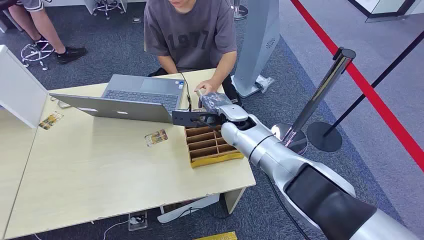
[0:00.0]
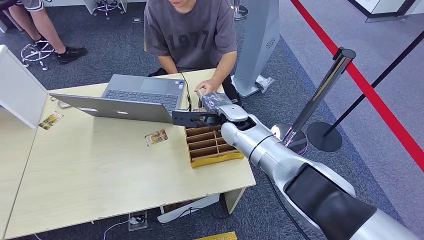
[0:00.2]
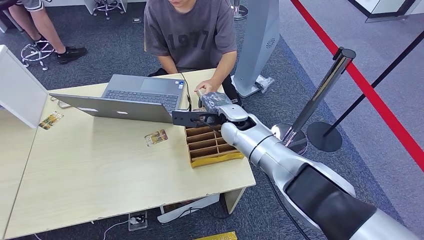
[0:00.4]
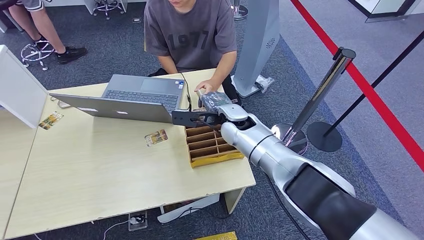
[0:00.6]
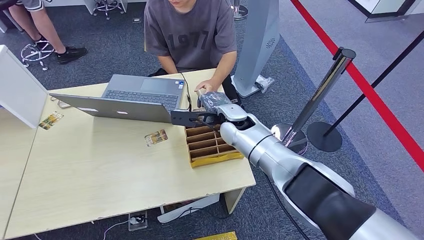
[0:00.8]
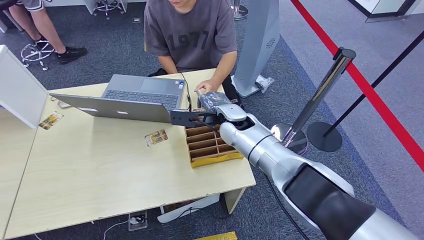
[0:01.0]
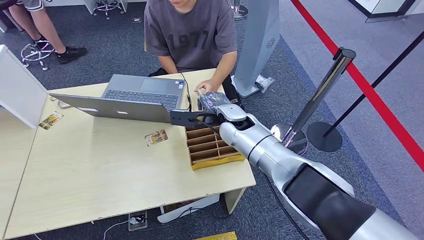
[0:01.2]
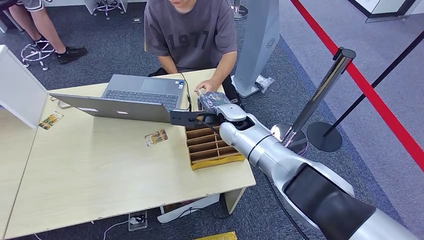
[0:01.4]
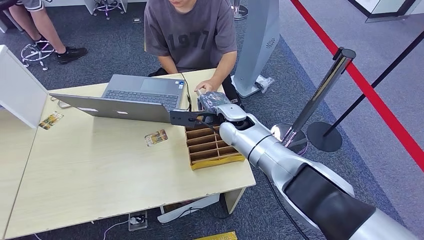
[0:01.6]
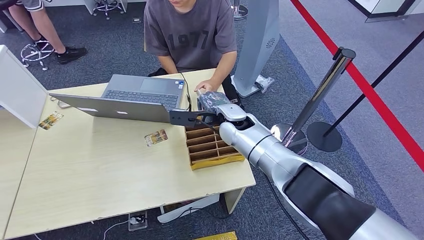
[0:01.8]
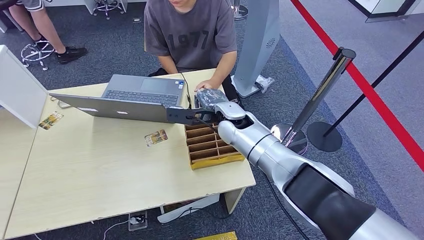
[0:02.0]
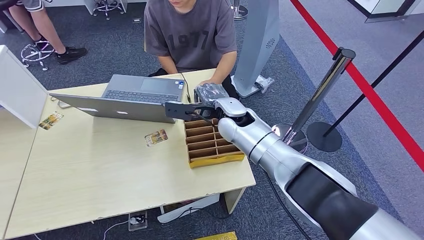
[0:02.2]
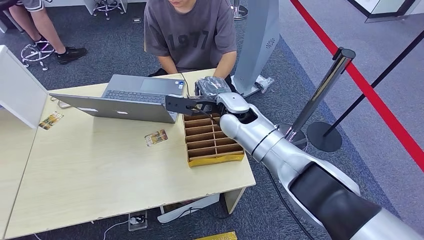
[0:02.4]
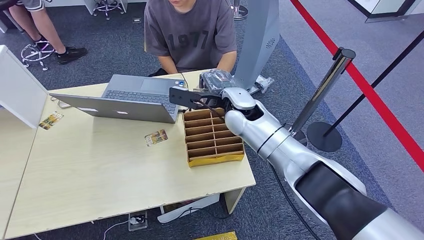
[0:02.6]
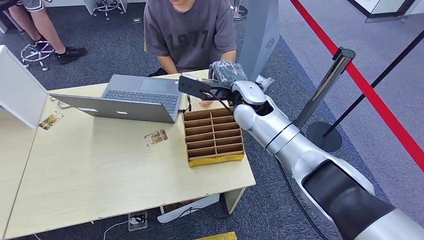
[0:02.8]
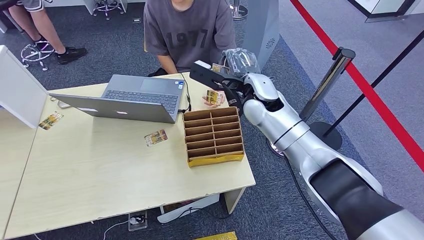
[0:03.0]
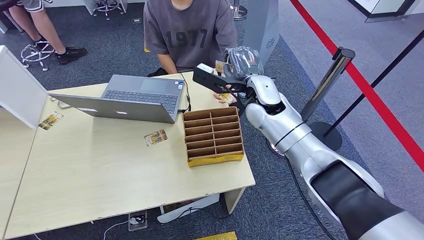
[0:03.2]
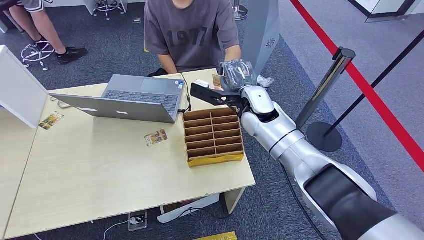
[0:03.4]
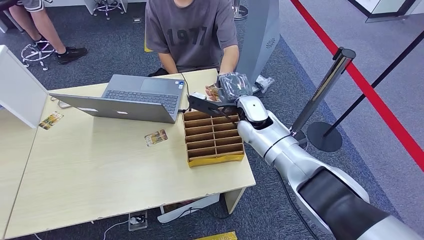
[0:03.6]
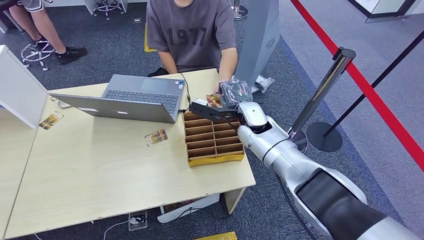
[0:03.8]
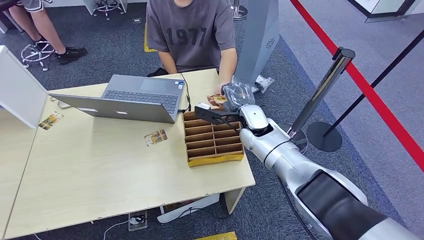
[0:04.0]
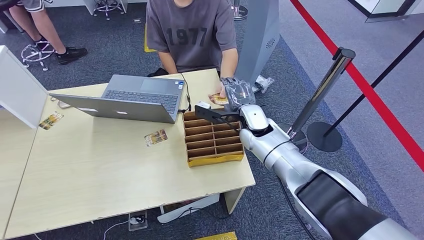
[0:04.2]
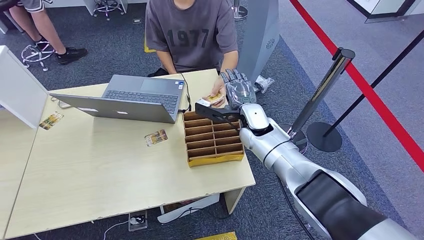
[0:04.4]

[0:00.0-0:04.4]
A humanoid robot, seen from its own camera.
Step, 0:00.0 to 0:01.8: Pick up the key card from the card box.
Step, 0:03.6 to 0:04.4: Hand the key card to the target.
0:01.4 to 0:03.0: The right hand is displaced upward by about 10 cm.
0:03.0 to 0:04.4: The right hand is displaced downward by roughly 10 cm.

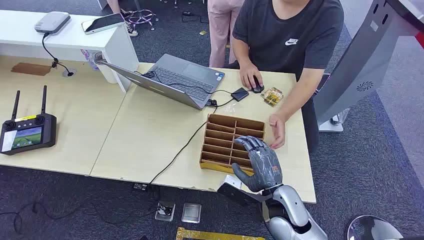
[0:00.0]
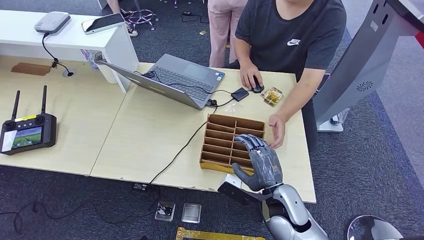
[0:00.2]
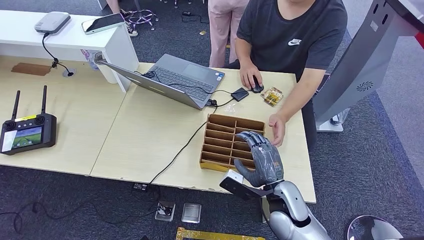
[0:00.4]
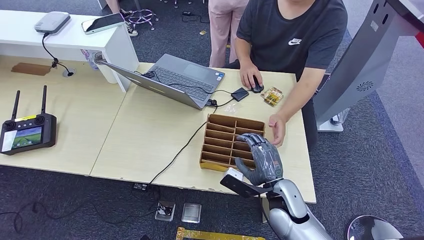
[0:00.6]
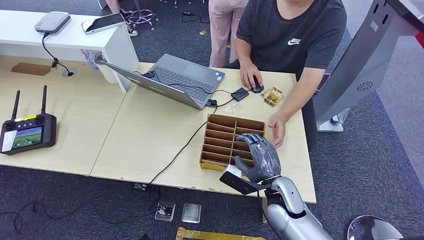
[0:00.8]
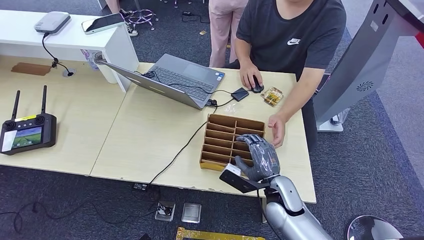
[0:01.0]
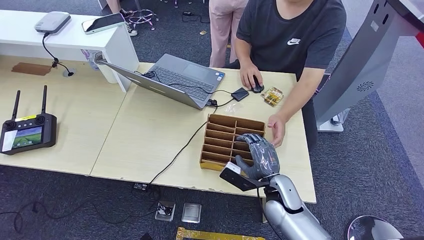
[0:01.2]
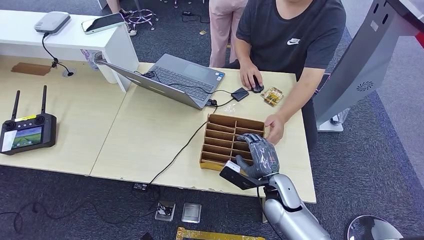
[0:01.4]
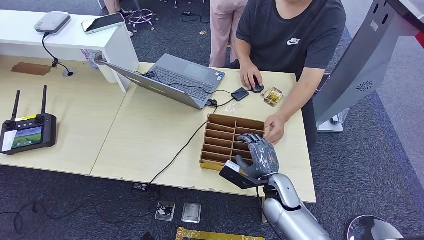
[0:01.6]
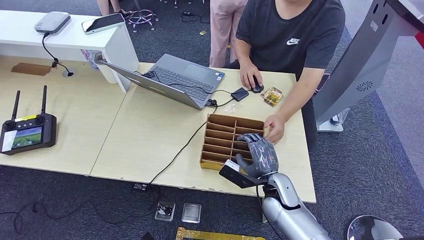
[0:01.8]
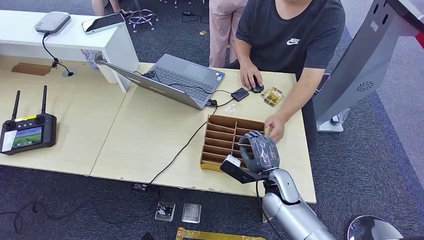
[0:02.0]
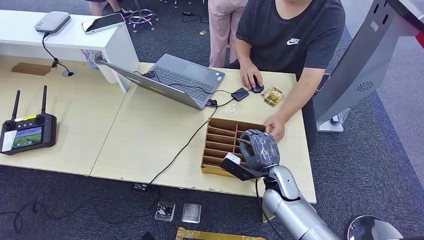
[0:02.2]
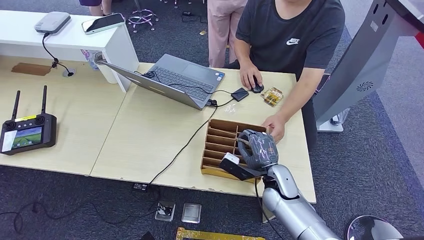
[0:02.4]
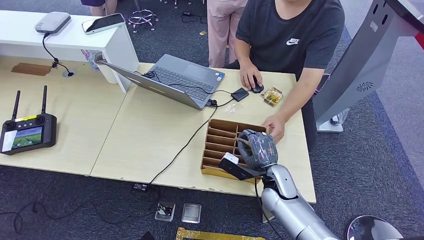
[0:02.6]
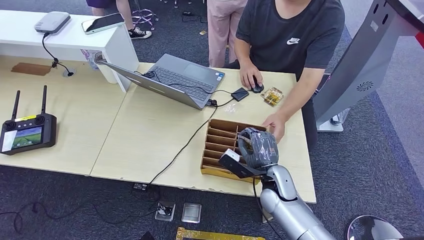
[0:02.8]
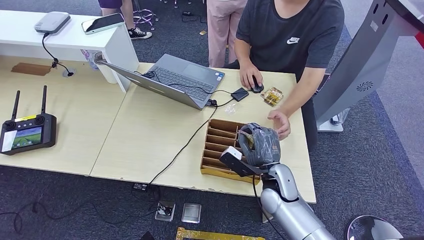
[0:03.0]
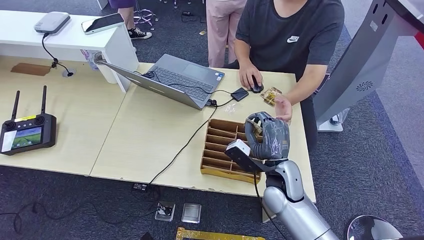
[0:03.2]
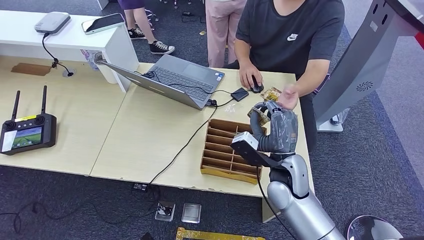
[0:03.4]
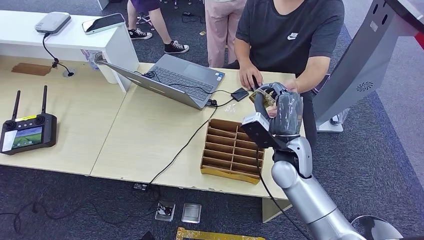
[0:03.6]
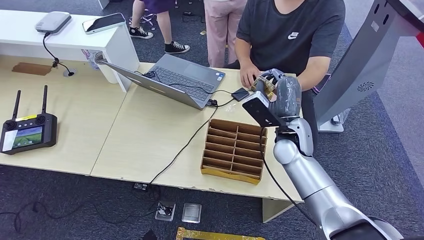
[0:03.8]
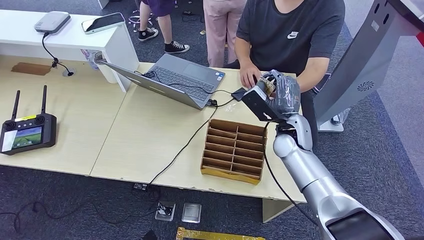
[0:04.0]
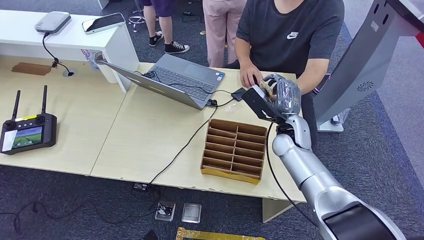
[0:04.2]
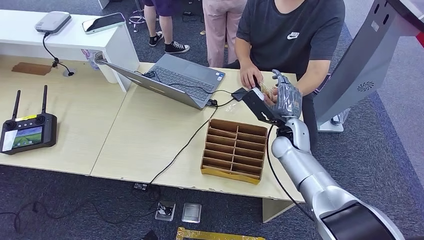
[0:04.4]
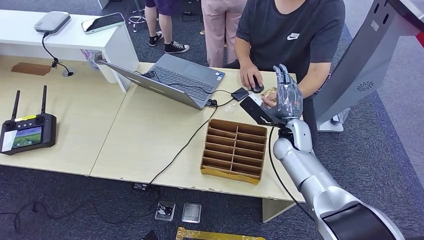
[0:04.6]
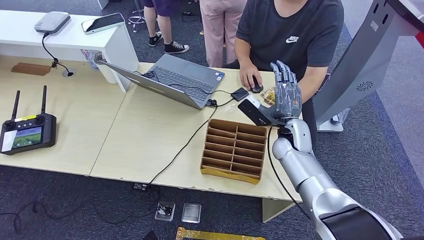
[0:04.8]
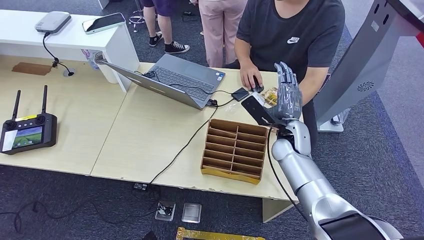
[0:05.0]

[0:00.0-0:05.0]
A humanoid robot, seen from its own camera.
Step, 0:00.0 to 0:03.0: Pick up the key card from the card box.
Step, 0:03.2 to 0:05.0: Hand the key card to the target.
0:01.6 to 0:03.4: The right hand shifts some 10 cm upward.
0:03.4 to 0:05.0: The right hand is displaced forward by about 10 cm.
